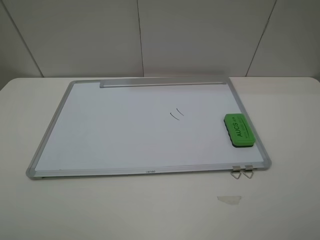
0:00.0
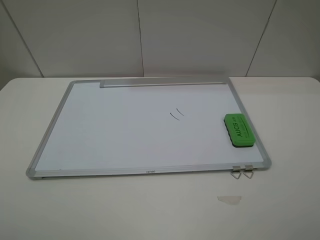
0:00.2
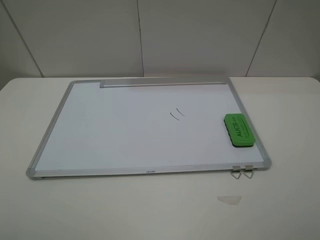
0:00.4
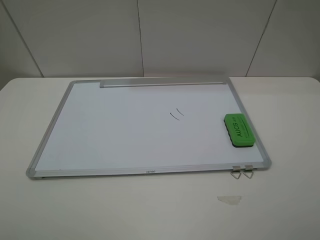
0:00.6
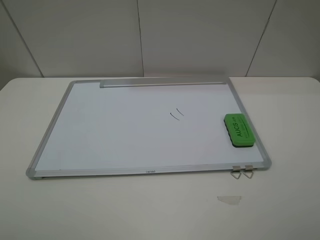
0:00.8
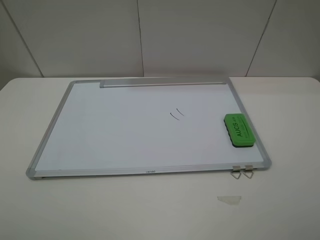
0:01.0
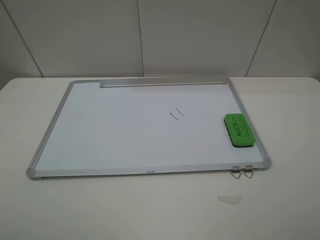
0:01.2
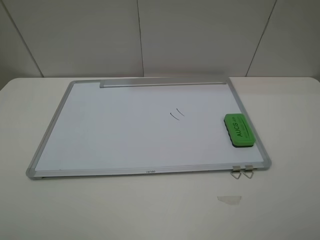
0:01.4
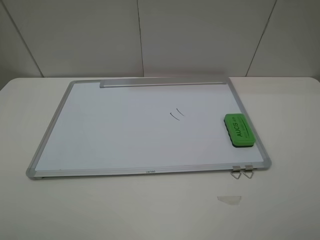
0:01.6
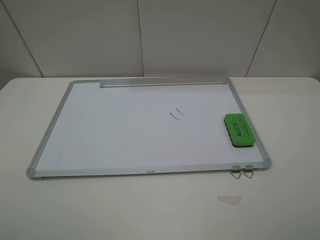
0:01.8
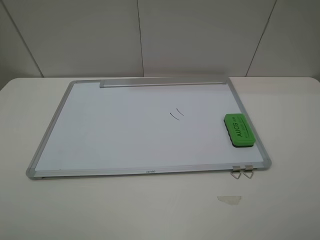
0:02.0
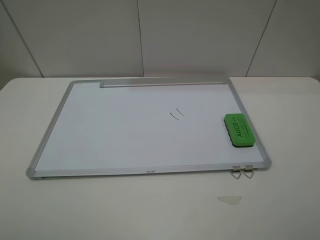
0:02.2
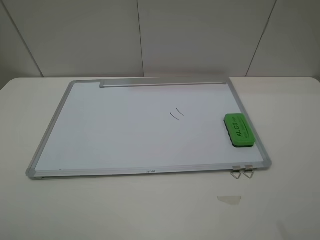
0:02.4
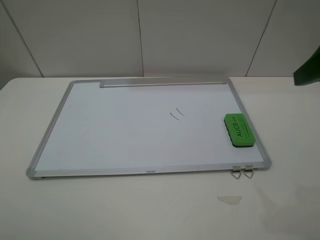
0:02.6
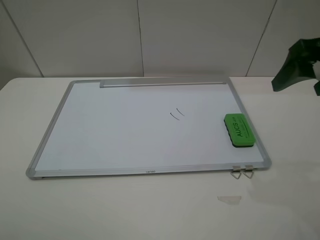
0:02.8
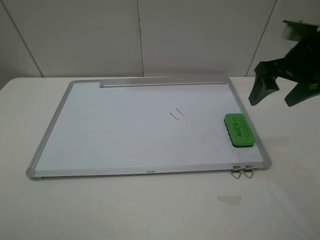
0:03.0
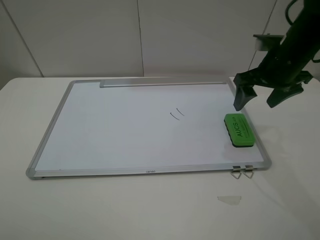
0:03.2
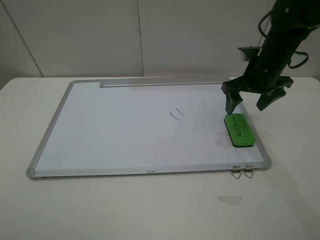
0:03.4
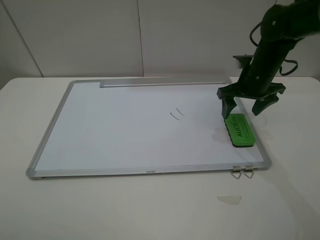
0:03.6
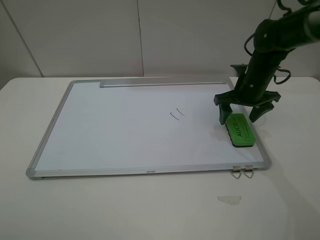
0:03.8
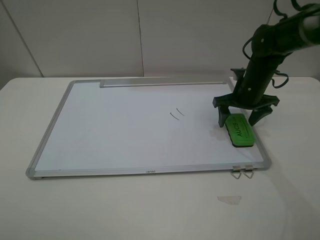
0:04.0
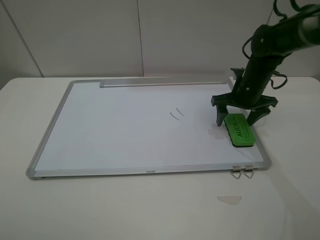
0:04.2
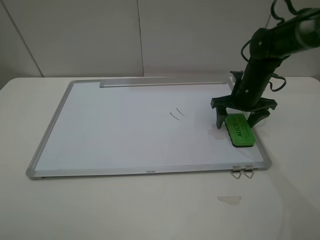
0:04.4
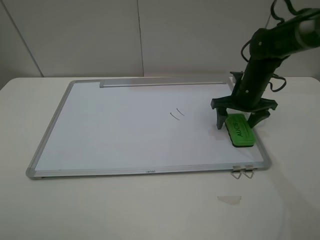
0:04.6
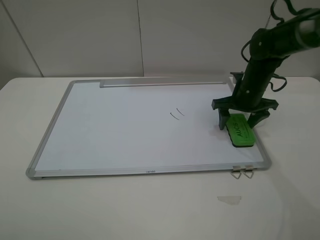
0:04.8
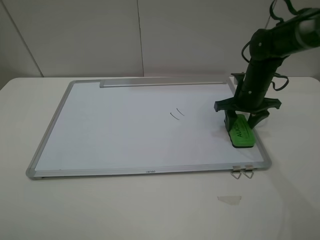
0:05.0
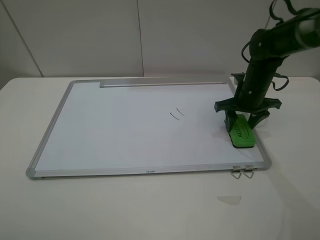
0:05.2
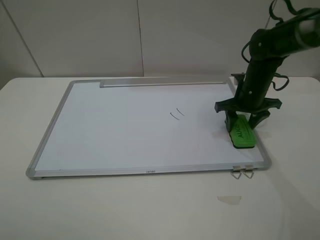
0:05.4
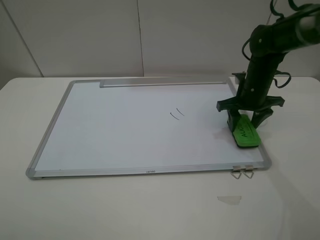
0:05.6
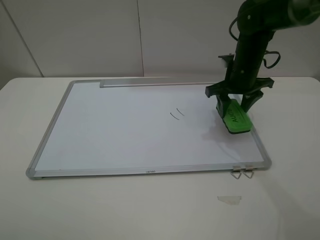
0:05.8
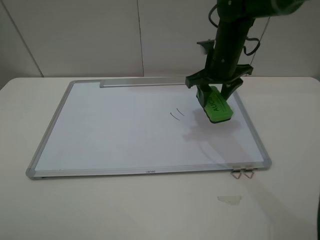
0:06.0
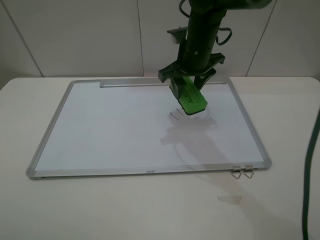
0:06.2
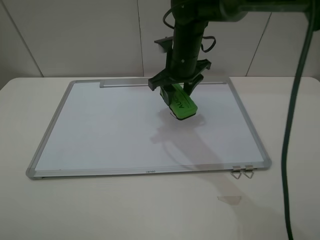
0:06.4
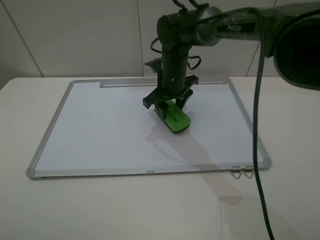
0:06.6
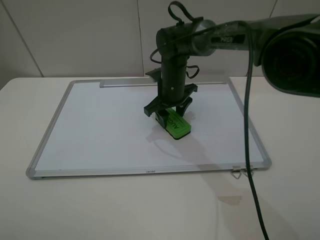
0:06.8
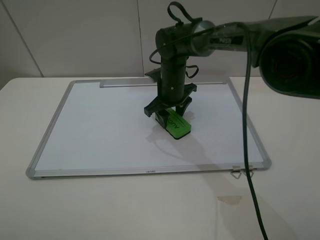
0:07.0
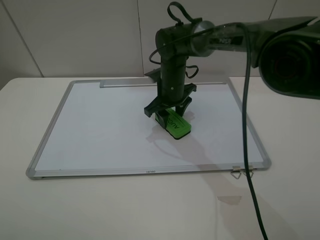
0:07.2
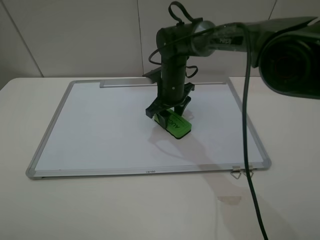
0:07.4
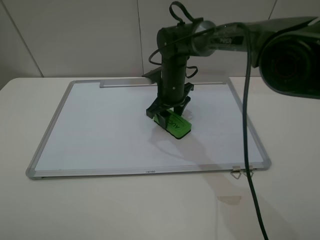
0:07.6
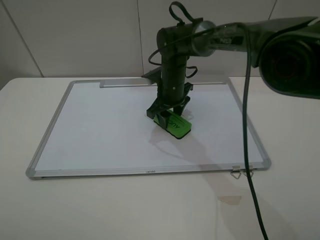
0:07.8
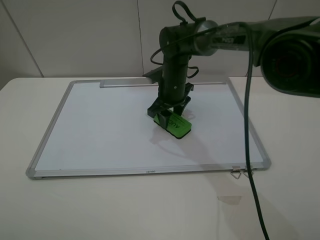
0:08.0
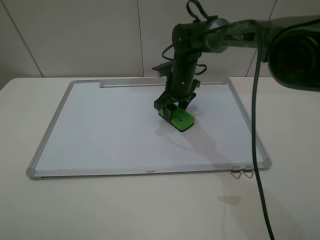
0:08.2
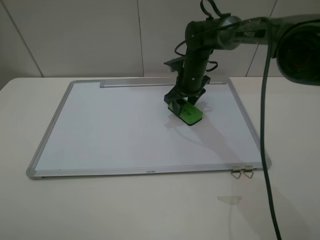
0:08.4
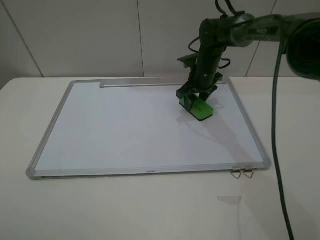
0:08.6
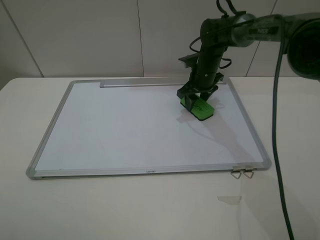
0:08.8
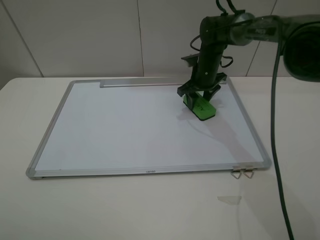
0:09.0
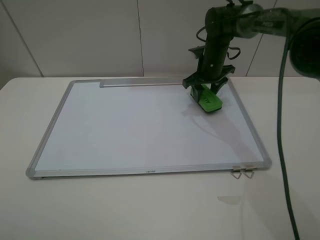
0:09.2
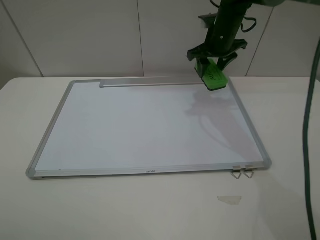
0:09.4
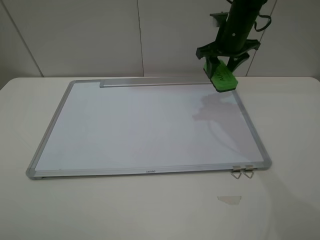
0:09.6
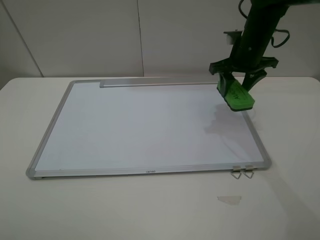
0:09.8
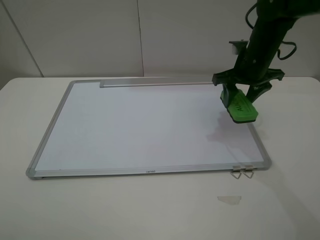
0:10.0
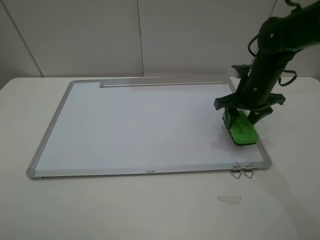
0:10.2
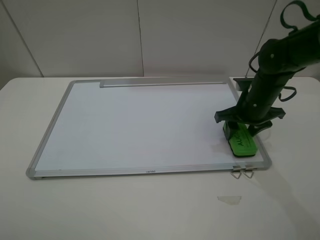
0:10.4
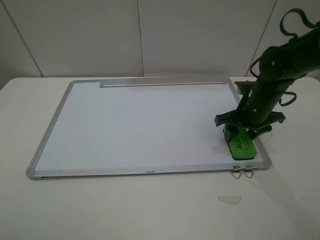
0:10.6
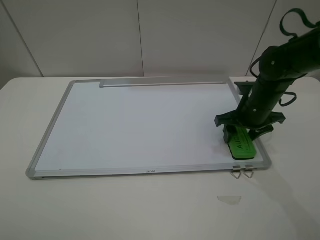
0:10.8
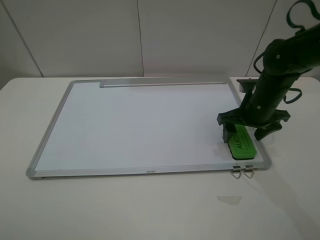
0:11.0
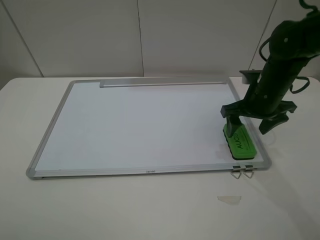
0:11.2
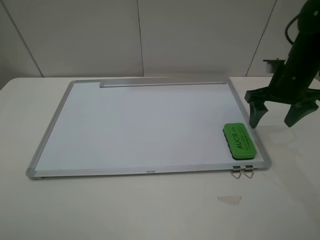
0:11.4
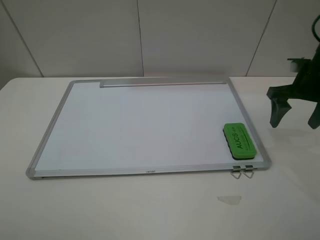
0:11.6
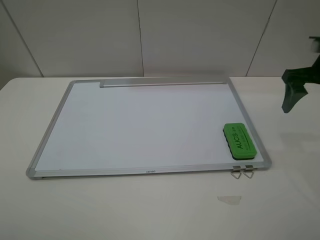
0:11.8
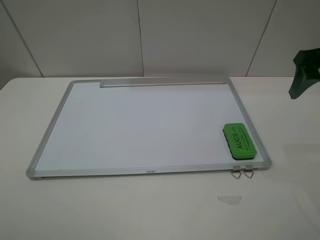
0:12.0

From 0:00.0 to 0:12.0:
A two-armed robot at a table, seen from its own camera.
Step, from 0:00.0 to 0:05.2: Grasp the eraser with the right gripper.
Step, from 0:05.4 to 0:08.8: Grasp the eraser and wipe the blackboard with the right gripper.
Step, from 0:09.0 to 0:11.2: Place the eraser with the right gripper.
From 0:01.6 to 0:03.0: The right gripper is displaced forward by about 30 cm.
From 0:03.0 to 0:04.4: The right gripper goes roughly 20 cm downward and forward.
From 0:04.4 to 0:06.0: The right gripper moves upward and to the left, roughly 10 cm, and closes its fingers.
From 0:06.0 to 0:07.6: The right gripper shifts approximately 15 cm to the left and downward.
From 0:07.6 to 0:09.0: The right gripper goes about 10 cm to the right and forward.
From 0:09.0 to 0:10.4: The right gripper is displaced backward and to the right by some 15 cm.
From 0:10.4 to 0:12.0: The right gripper shifts about 15 cm upward and to the right, and opens.

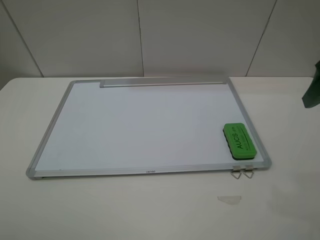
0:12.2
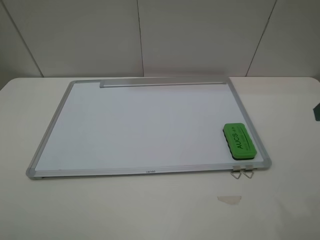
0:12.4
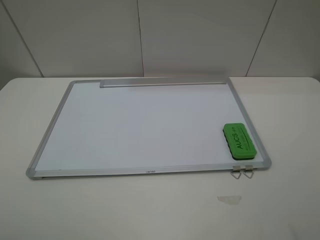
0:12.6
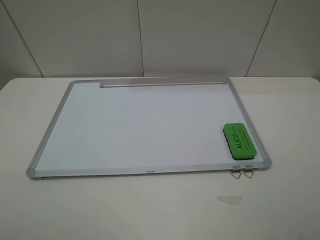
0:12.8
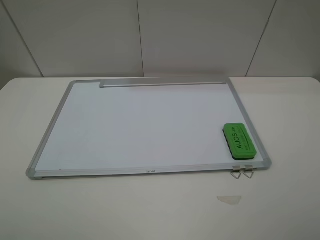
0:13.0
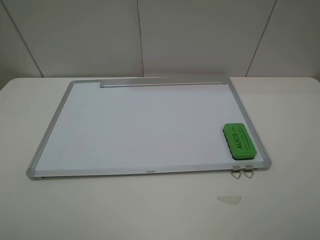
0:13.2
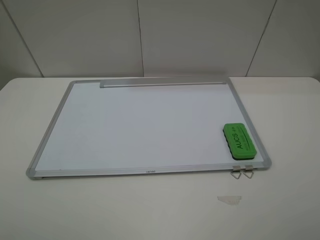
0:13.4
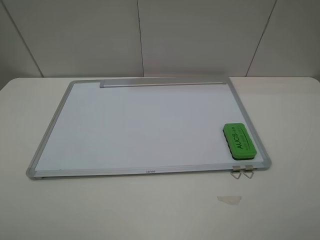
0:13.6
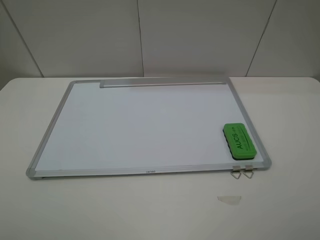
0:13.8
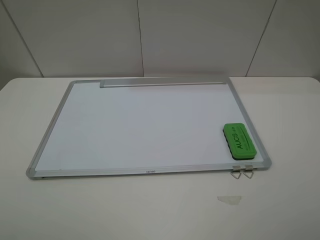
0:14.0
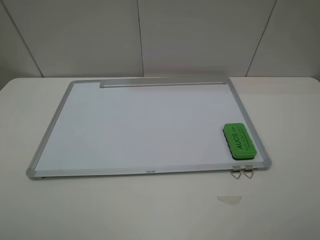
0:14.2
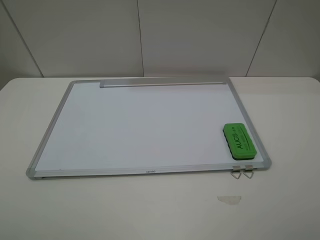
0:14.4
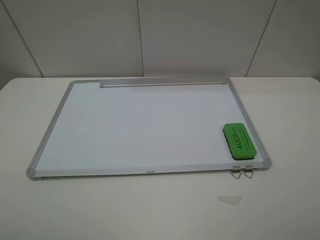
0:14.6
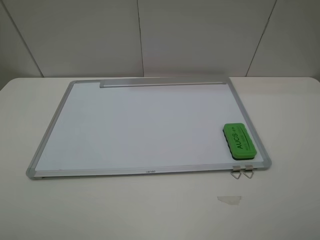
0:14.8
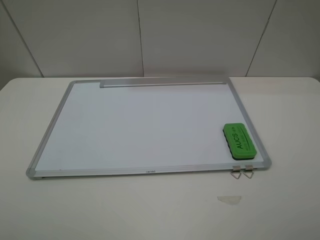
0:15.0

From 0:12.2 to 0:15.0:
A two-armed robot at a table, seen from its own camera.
From 0:13.6 to 0:15.0: The two grippers keep their place.
